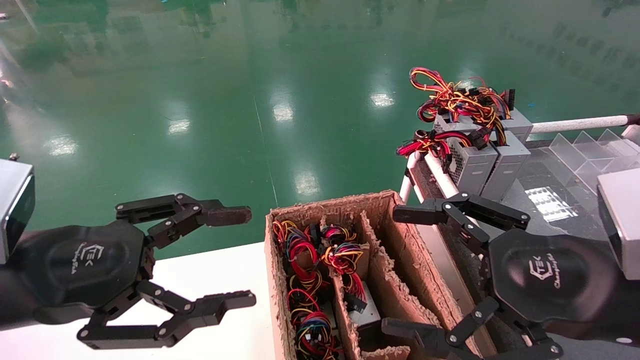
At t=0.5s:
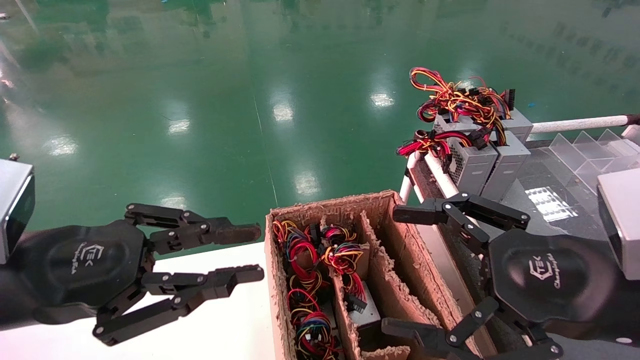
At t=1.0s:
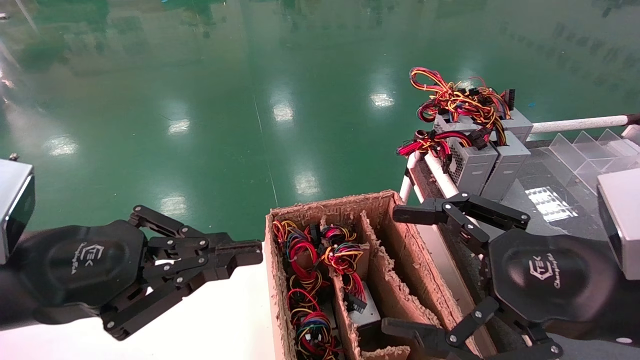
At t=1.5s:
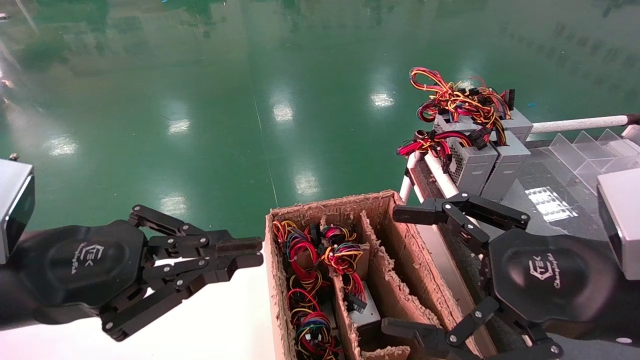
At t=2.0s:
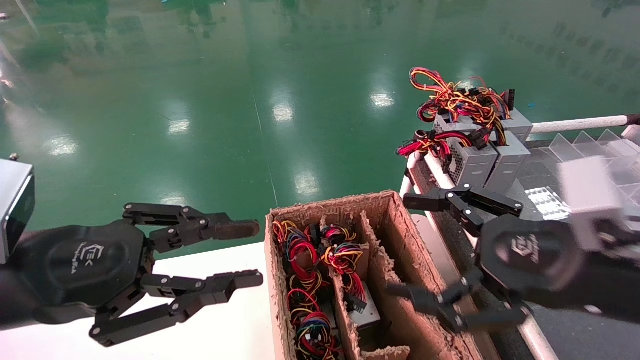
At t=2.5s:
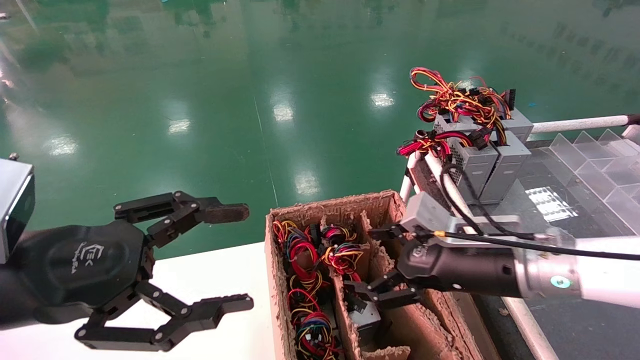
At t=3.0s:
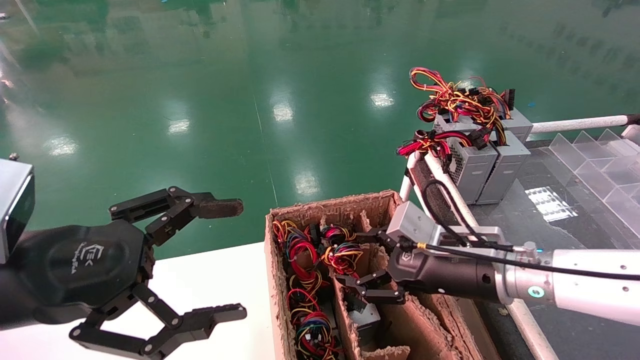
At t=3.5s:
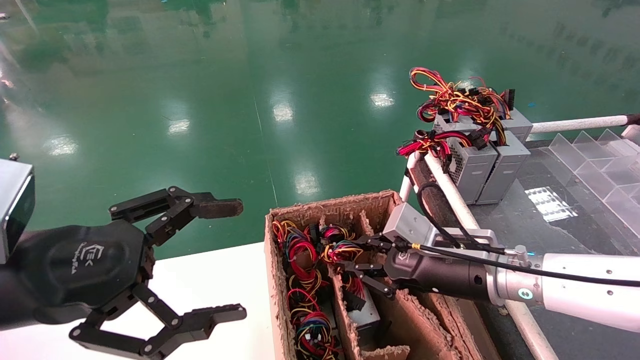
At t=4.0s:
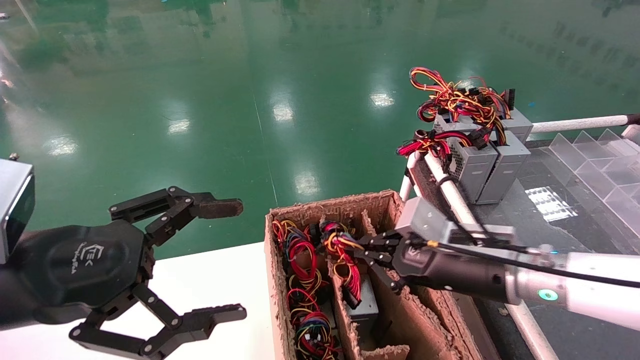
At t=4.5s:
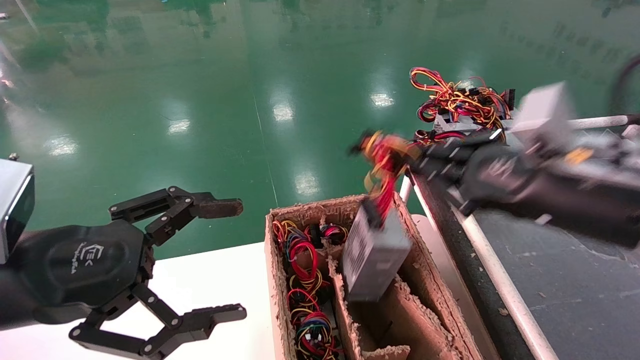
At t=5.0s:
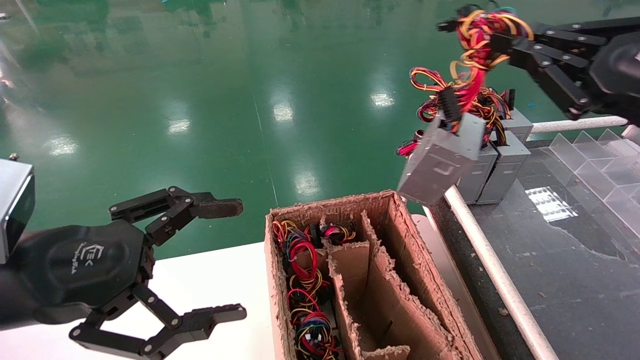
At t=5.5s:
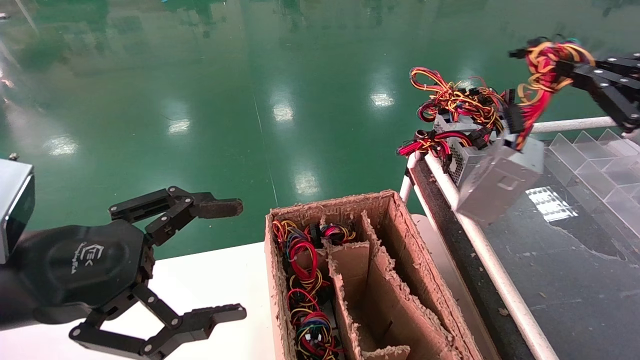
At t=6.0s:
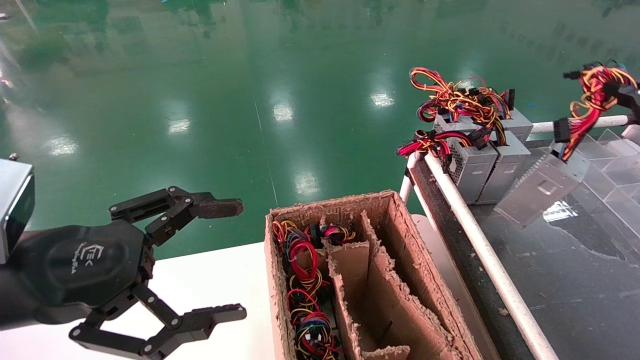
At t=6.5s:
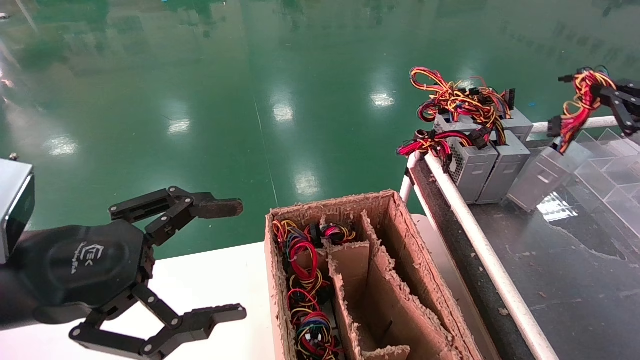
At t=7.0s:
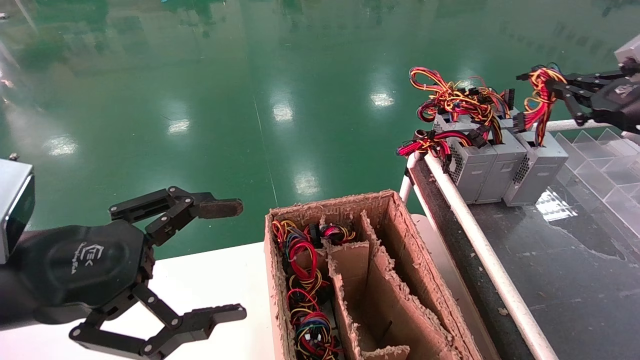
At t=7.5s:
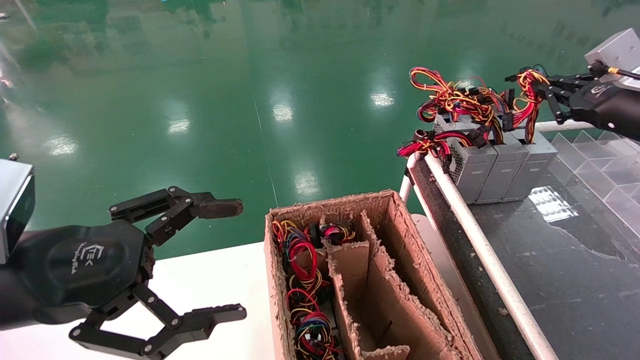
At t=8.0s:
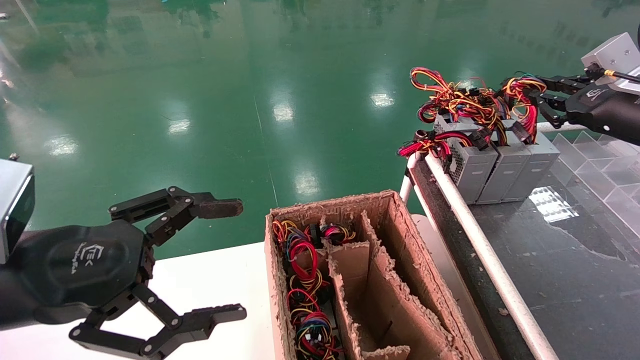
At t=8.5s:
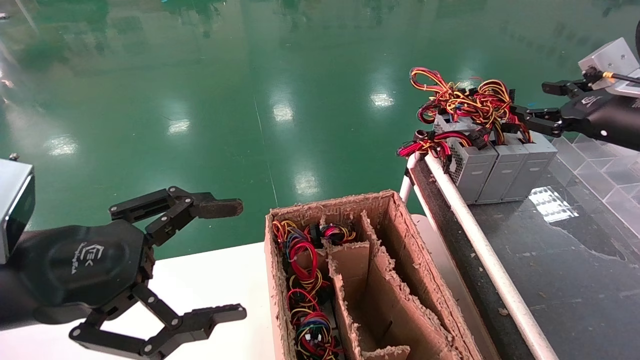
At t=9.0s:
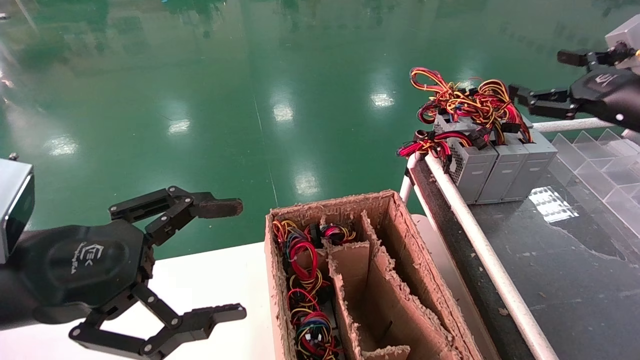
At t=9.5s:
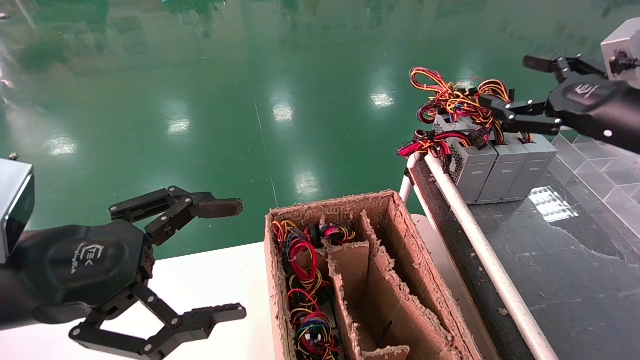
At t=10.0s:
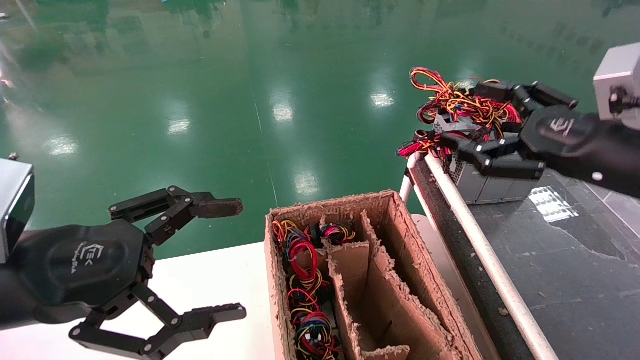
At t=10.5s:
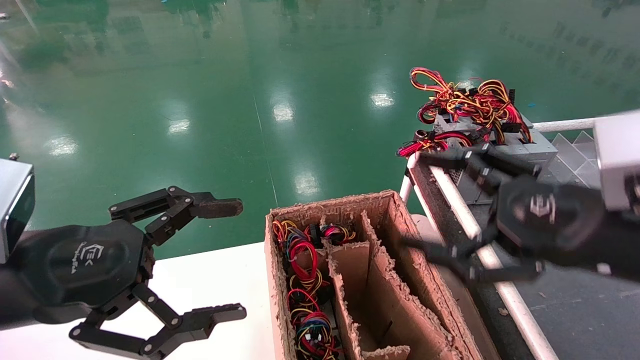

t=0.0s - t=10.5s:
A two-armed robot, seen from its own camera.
Step, t=1.5s - t=3.5s: Grab and lift the power supply from the large box.
Step, t=4.0s - t=7.5s: Place the power supply on the operating table.
t=0.0s - t=2.0s: The left gripper closes its fingers.
t=2.0s - t=4.0s: The left gripper opens, while the right gripper shifts some 10 cm forward and to the left, and closes its fingers.
t=4.0s - t=6.5s: The right gripper goes about 30 cm to the right and upward.
t=6.5s - t=8.5s: The right gripper travels forward by approximately 5 cm, and opens up.
t=8.5s - t=10.5s: The right gripper moves backward and to the left, about 20 cm, and opens.
